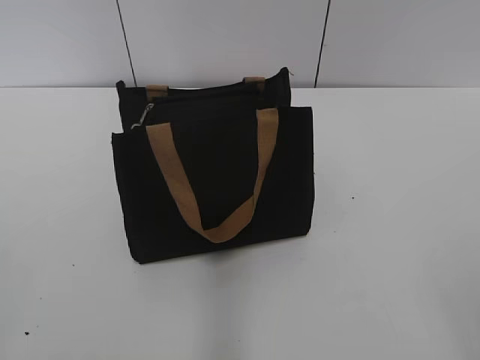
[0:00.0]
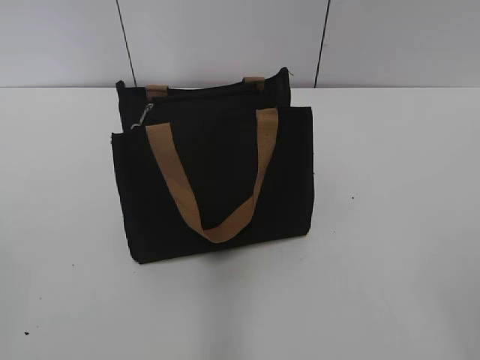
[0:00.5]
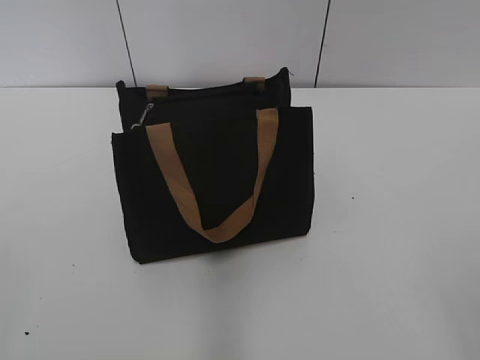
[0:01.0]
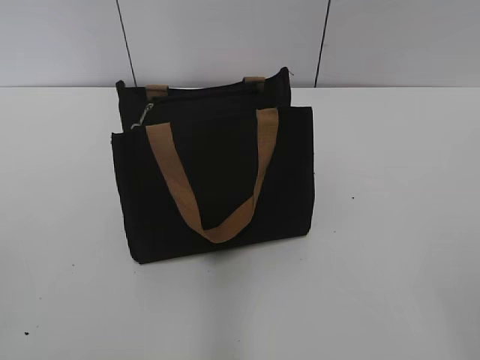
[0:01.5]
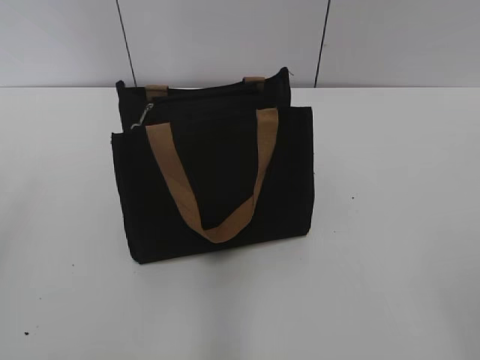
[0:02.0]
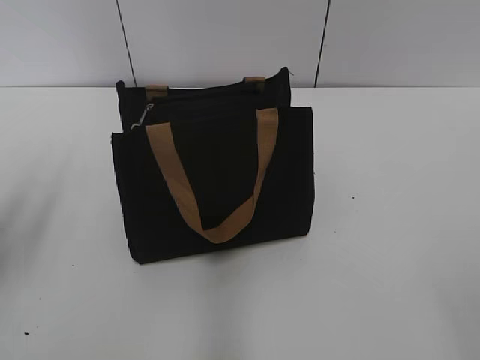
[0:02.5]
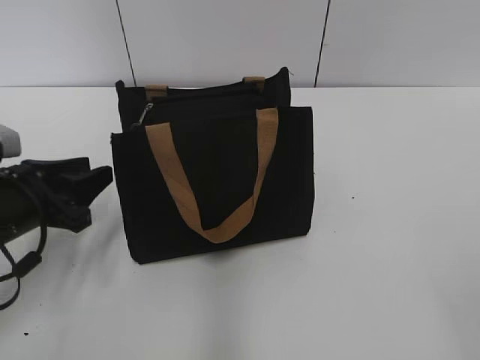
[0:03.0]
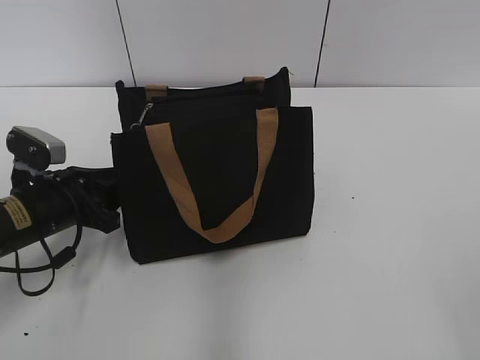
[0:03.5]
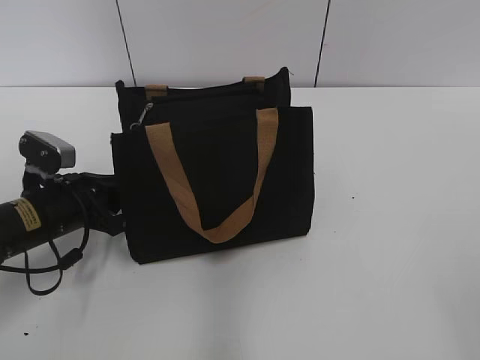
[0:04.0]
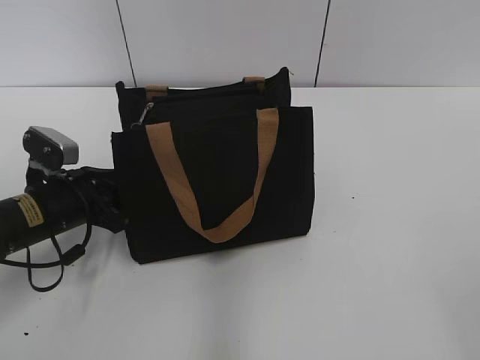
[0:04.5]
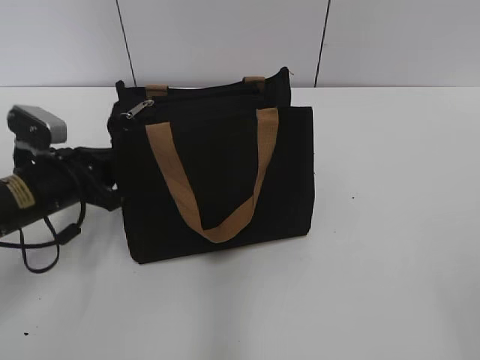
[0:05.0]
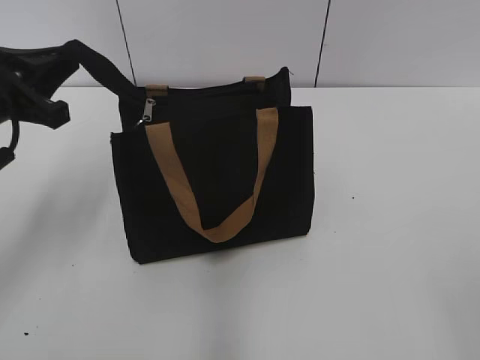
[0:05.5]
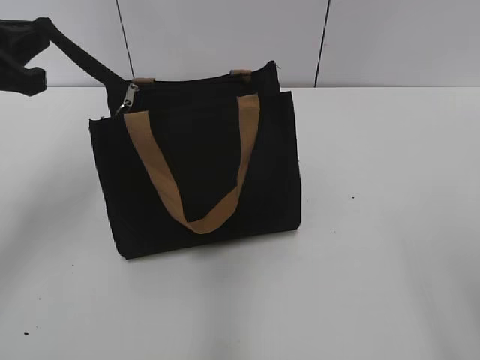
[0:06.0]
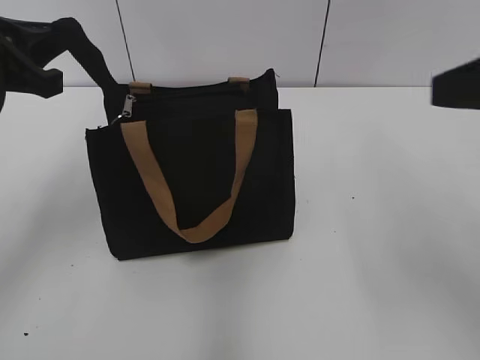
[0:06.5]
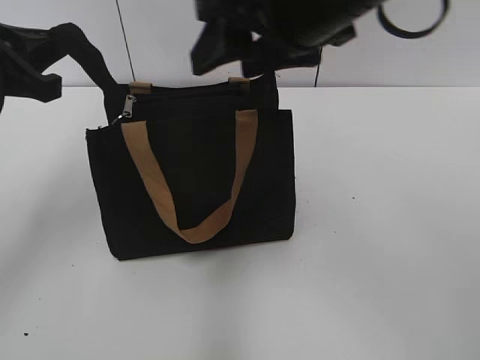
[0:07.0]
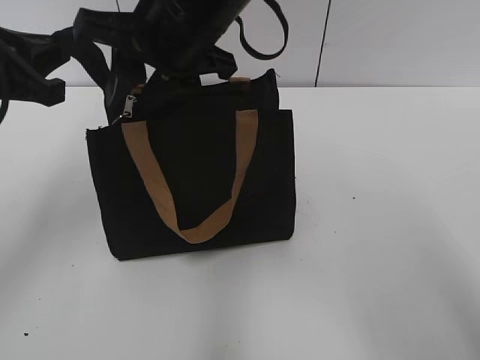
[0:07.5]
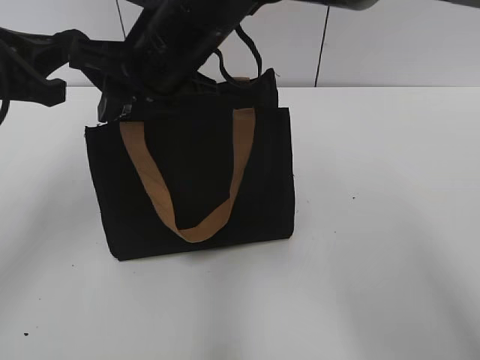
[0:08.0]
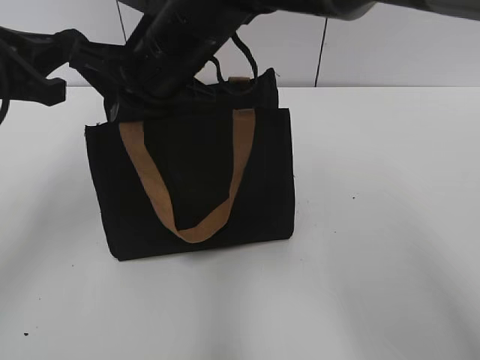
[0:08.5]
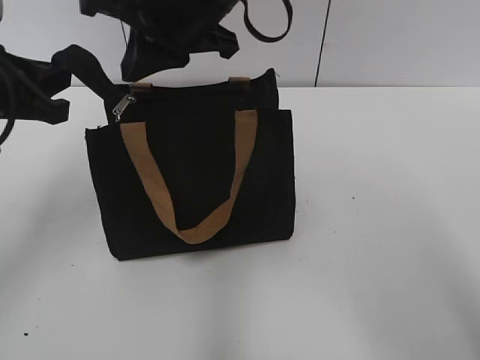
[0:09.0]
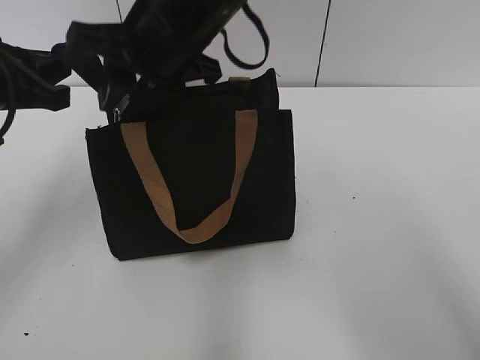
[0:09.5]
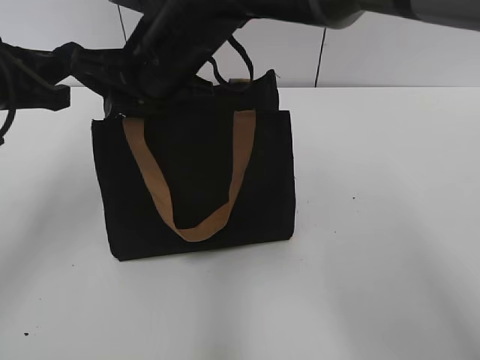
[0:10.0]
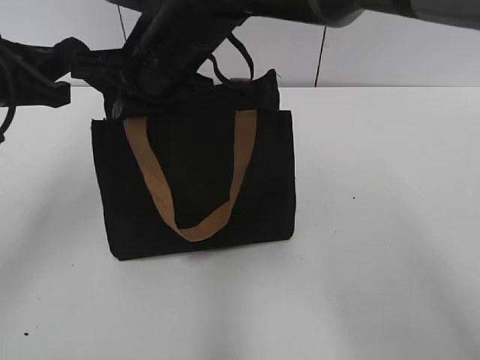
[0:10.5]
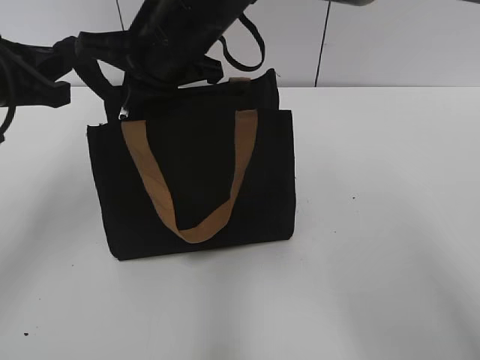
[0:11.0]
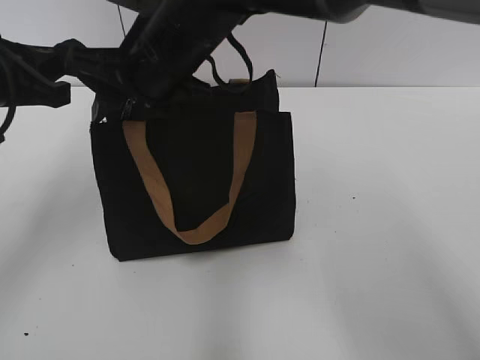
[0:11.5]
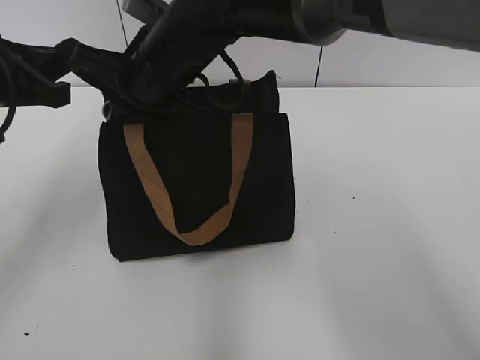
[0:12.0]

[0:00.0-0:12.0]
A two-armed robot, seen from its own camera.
0:02.0 to 0:04.0: The left gripper goes roughly 30 cm downward and forward, and closes up.
0:04.0 to 0:06.0: The left gripper goes about 20 cm upward. The right gripper changes place by roughly 5 cm.
0:06.0 to 0:08.0: The right gripper goes some 40 cm to the left and forward, and closes.
0:08.0 to 0:10.0: The right gripper closes, then reopens.
0:10.0 to 0:12.0: The right gripper closes up.

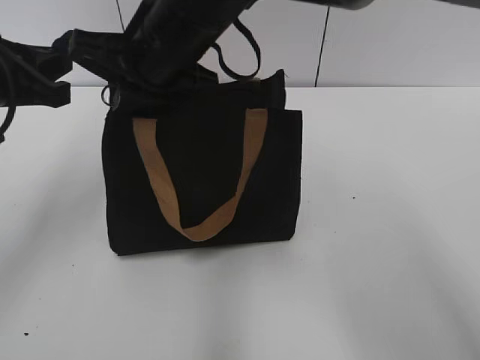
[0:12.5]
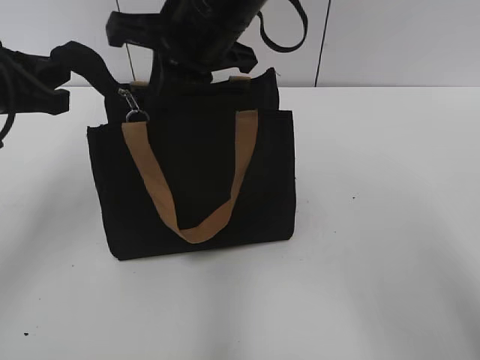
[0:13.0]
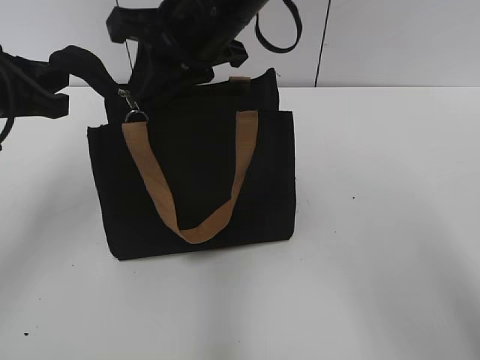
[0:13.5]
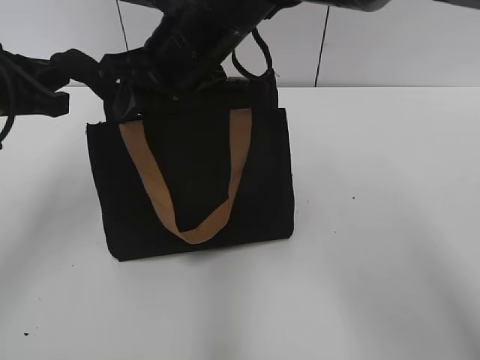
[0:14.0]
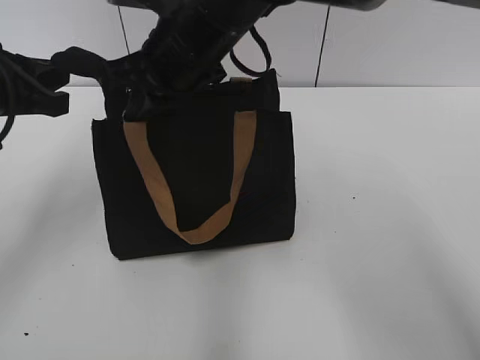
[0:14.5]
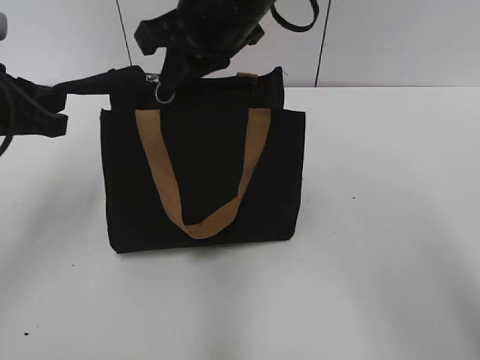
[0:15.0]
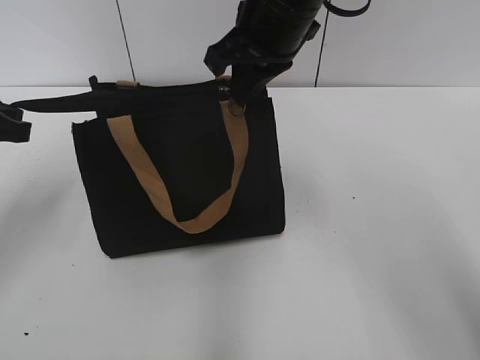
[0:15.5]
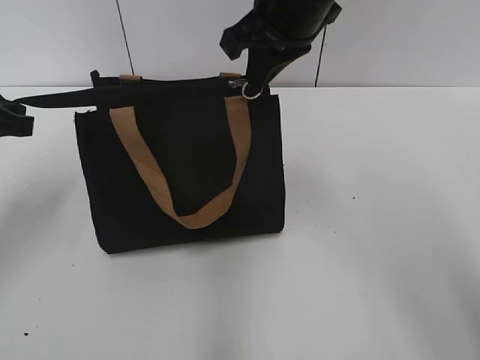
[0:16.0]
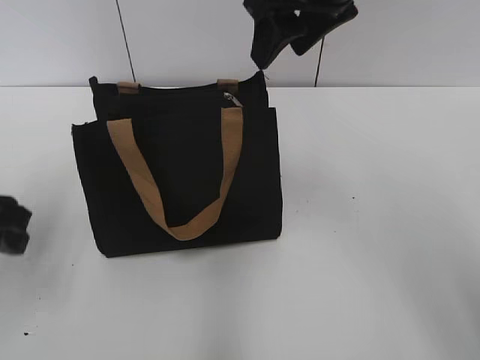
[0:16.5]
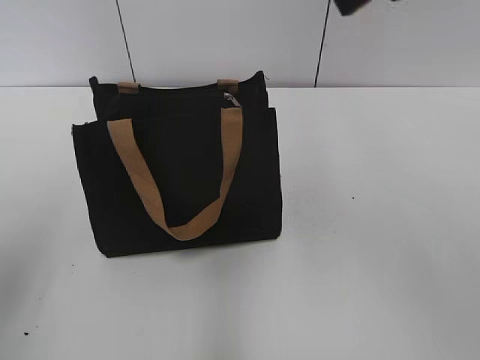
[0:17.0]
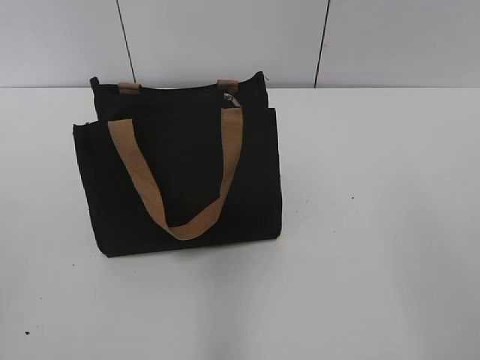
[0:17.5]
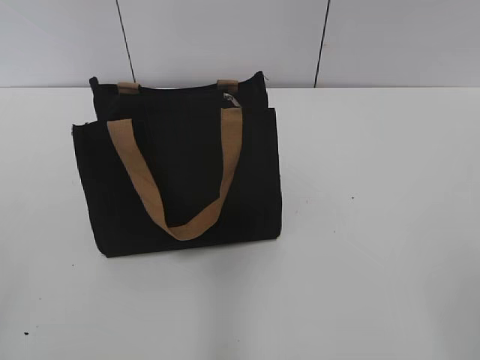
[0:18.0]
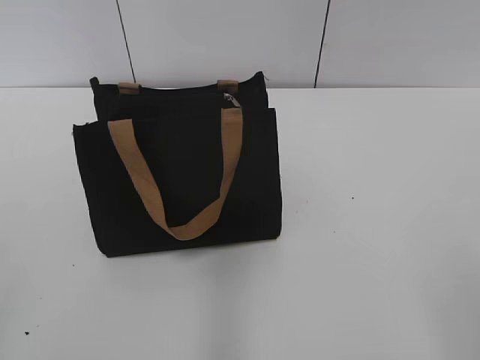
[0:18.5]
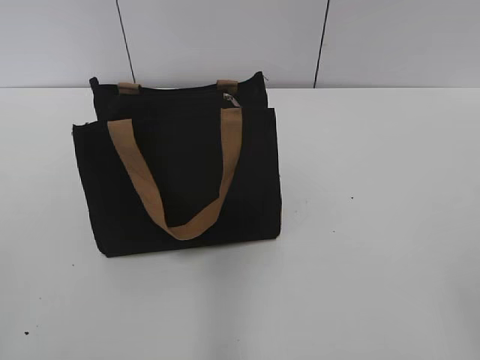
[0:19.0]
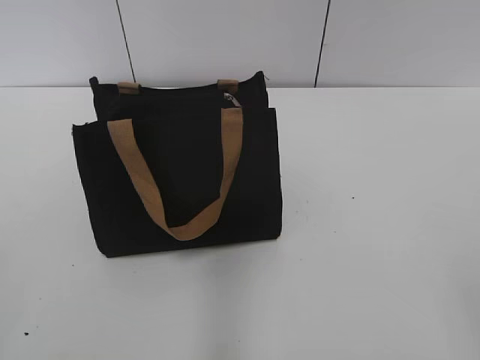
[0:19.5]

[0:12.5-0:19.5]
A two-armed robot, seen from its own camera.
Step, 0:12.5 to 0:16.0: Zip up the bag with your right hand.
0:12.5 to 0:14.5: The right gripper opens and closes again.
0:14.5 to 0:16.0: The right gripper goes approximately 10 cm to the right and upward.
0:16.0 to 0:17.5: The right gripper is displaced backward and to the right by approximately 35 cm, and opens, while the left gripper goes roughly 30 cm backward, and opens up.

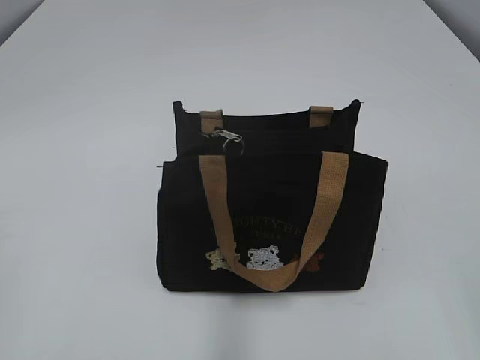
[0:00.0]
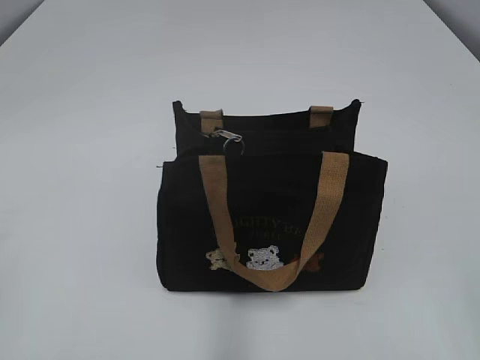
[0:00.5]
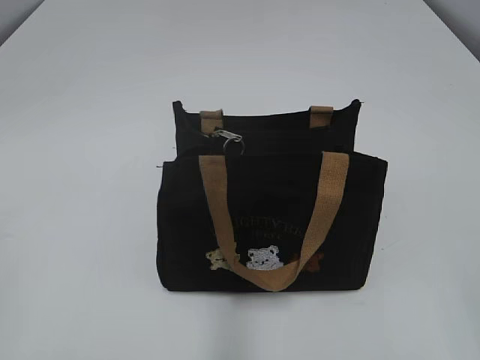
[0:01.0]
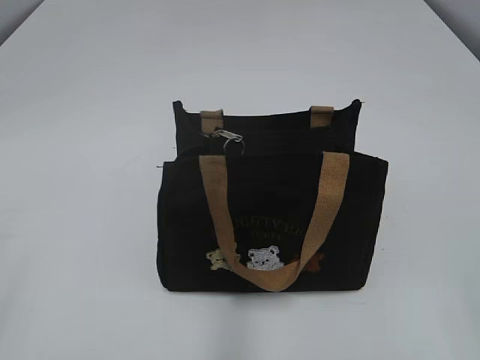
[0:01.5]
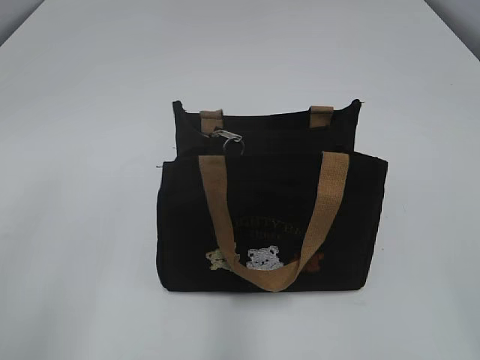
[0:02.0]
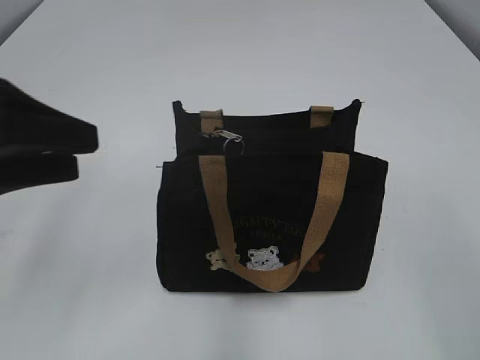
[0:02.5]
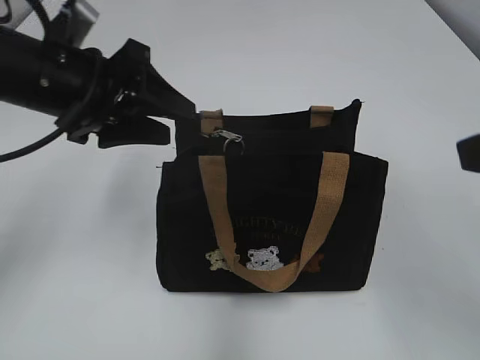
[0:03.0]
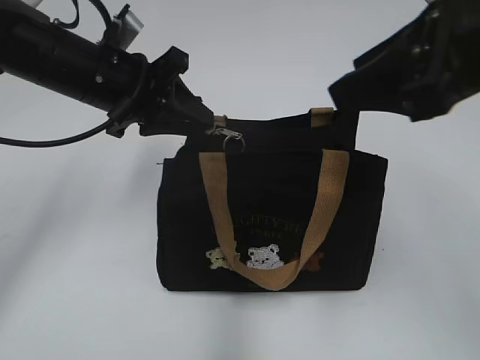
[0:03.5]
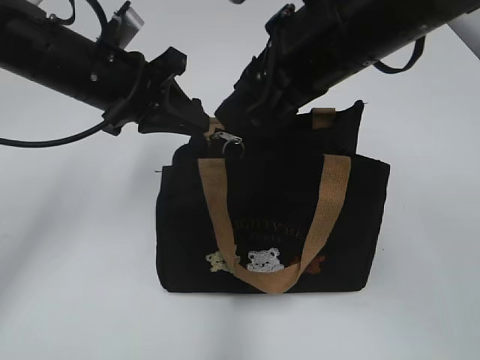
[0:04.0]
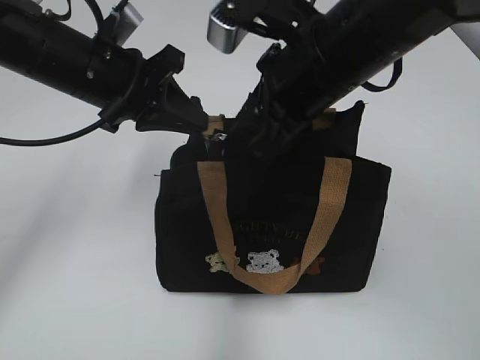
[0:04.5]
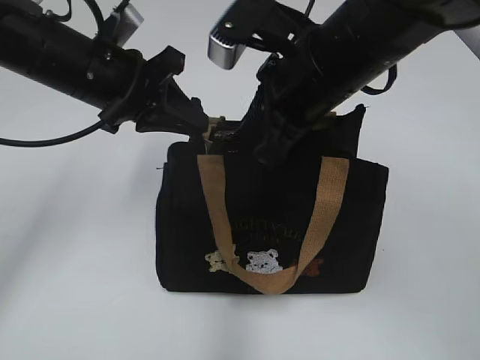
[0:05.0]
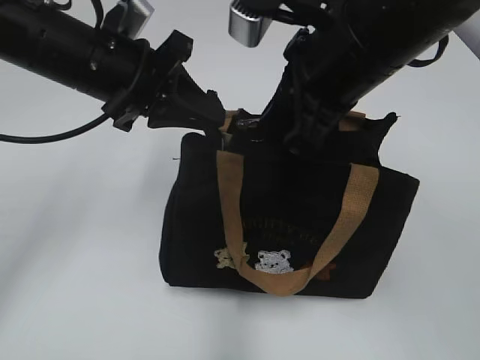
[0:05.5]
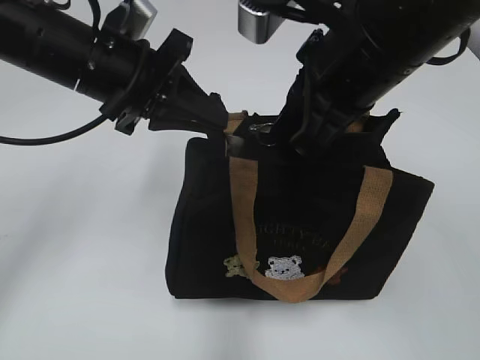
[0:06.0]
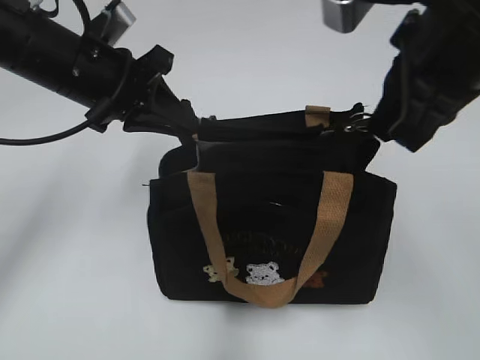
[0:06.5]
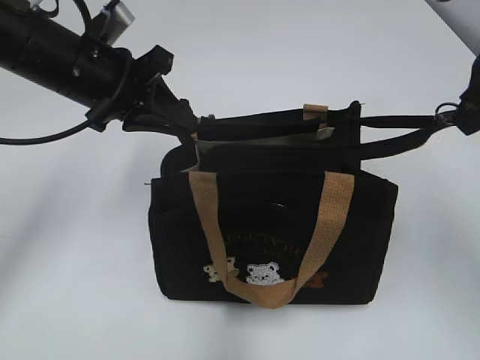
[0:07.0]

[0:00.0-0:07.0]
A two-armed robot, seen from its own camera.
0:02.0 to 0:03.5: The left gripper moves forward and to the right, some 30 cm, and closes up. The right gripper moves forward and to the left, approximately 25 cm.
0:03.5 to 0:05.0: The left gripper closes up; the right gripper moves to the left, forward and downward, about 15 cm, and closes up.
0:05.0 to 0:07.0: The right gripper moves to the right and upward, approximately 15 cm.
